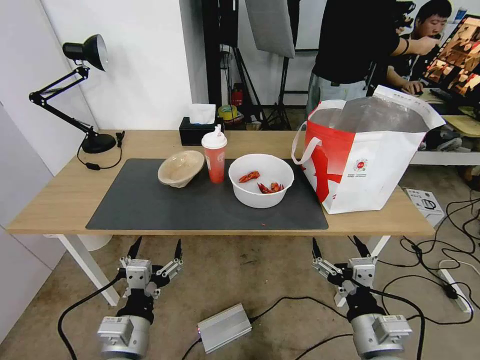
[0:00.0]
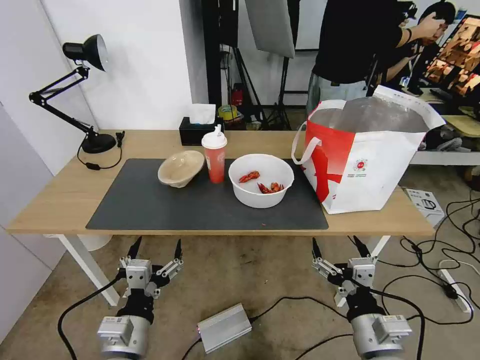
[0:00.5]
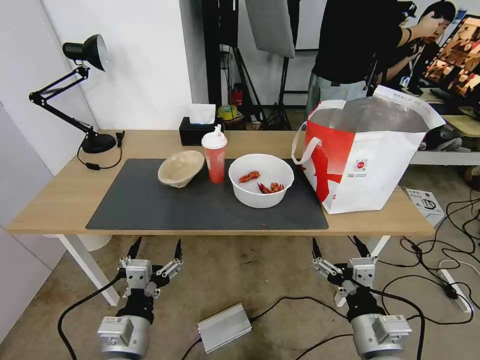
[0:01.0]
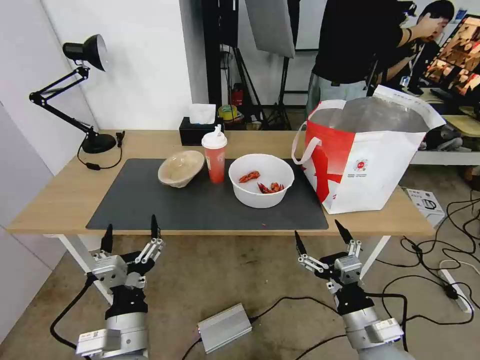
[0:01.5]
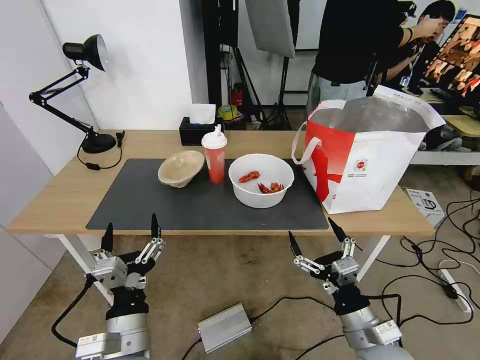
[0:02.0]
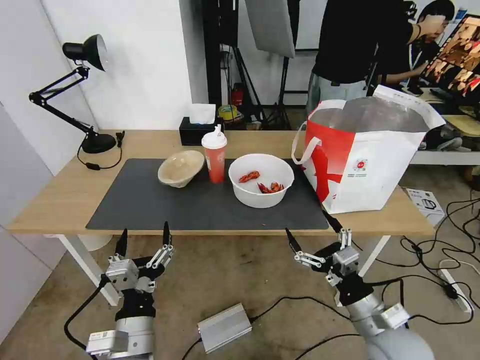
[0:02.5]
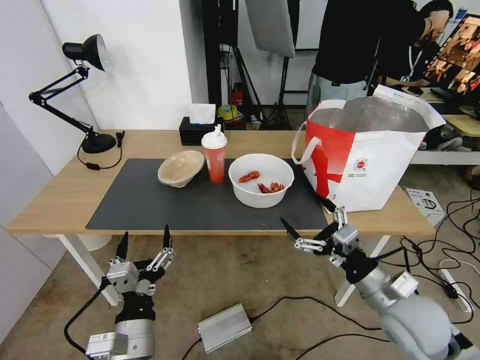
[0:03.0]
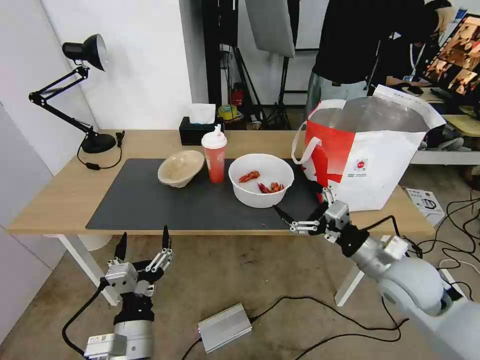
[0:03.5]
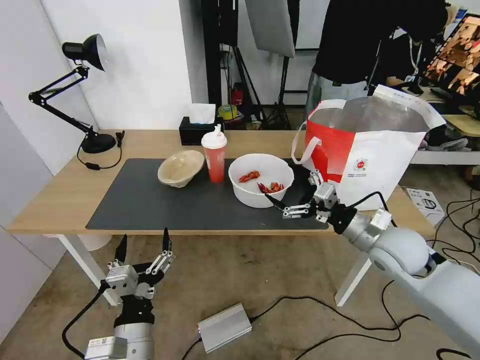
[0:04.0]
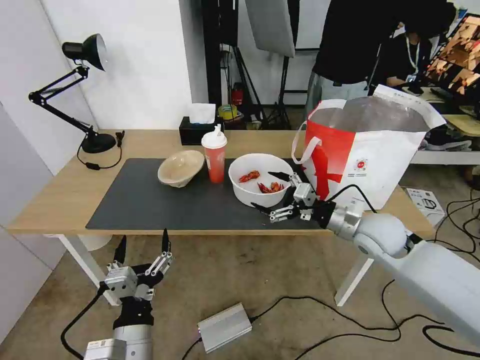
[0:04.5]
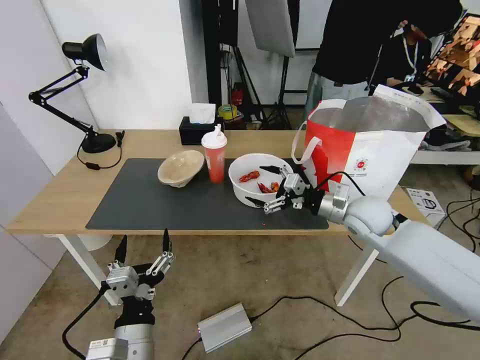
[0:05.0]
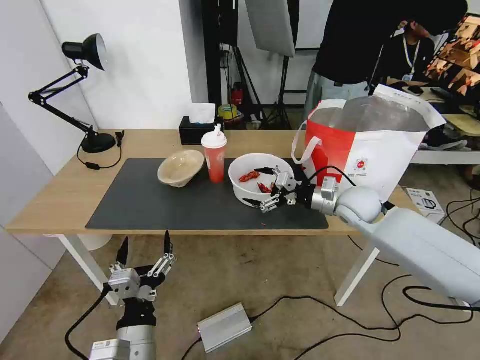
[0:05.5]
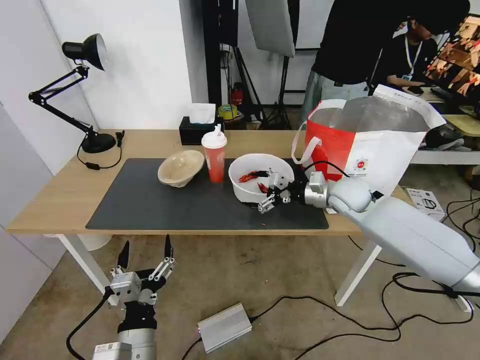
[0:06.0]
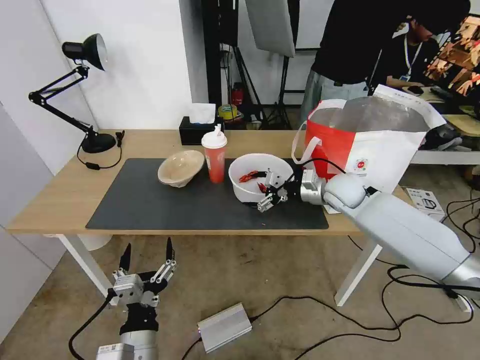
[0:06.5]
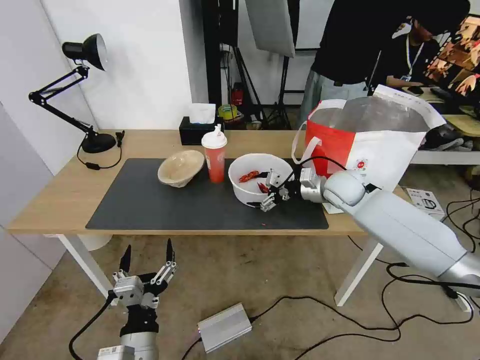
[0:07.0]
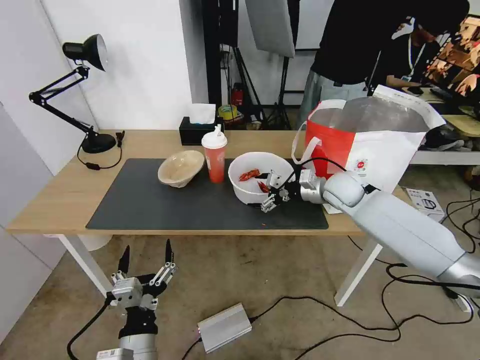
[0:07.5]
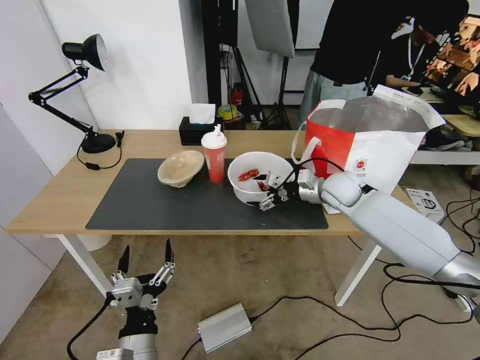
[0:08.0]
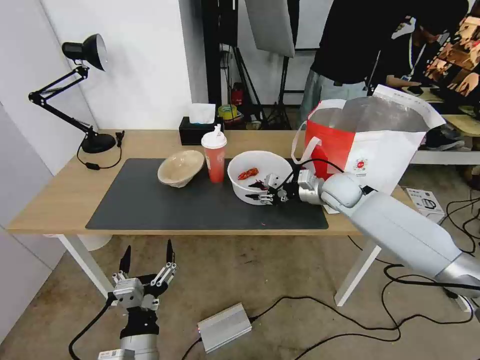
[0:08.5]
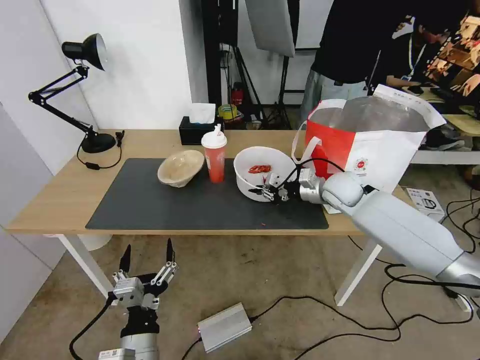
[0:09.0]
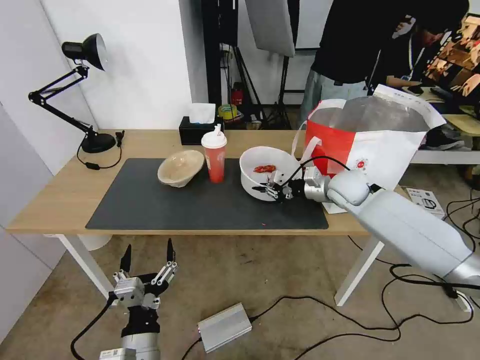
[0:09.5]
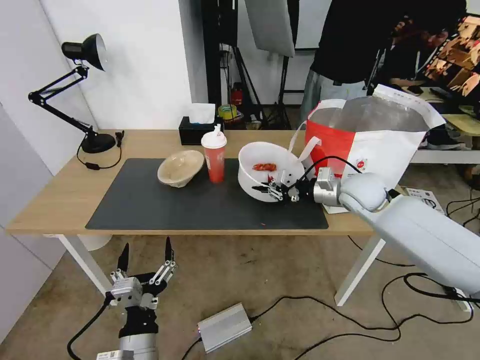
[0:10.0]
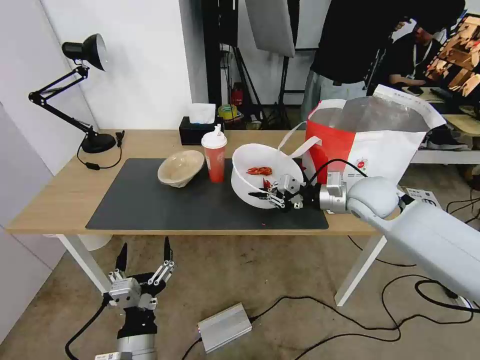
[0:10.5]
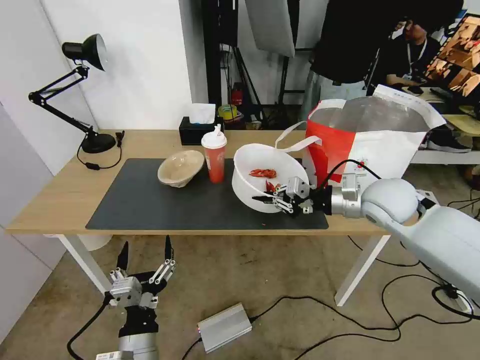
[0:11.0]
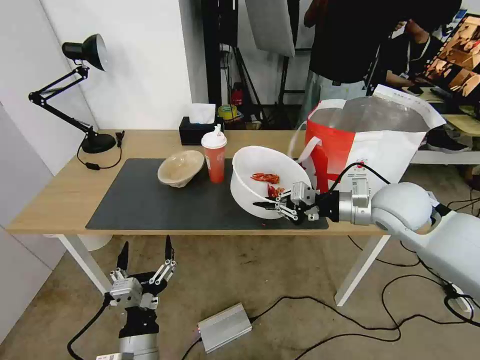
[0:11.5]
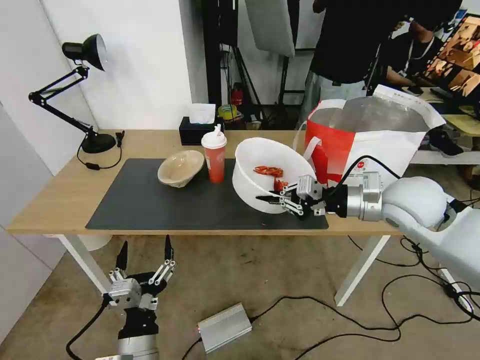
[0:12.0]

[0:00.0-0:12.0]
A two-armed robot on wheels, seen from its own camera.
Task of the whole recording: Pick up the trash from the table and place it into the takeout bag.
2.0 to 4.0 s: The right gripper goes approximately 20 cm forward and upward.
4.0 to 6.0 s: The right gripper goes approximately 15 cm forward.
6.0 to 8.0 s: There are only small adjustments of the grippers.
8.0 to 10.0 s: The right gripper shifts by roughly 5 cm, and closes its fingers.
10.0 to 12.0 s: The right gripper shifts roughly 10 cm backward and upward.

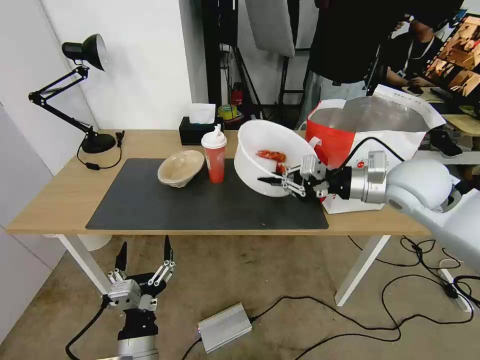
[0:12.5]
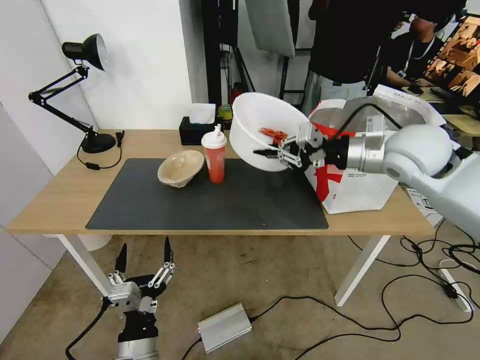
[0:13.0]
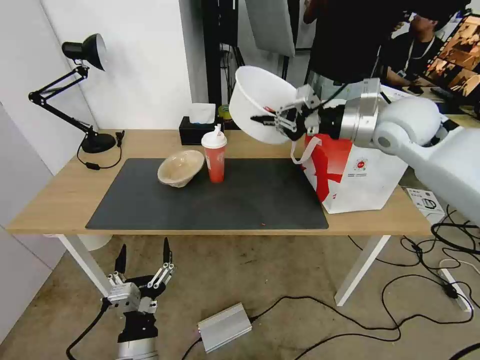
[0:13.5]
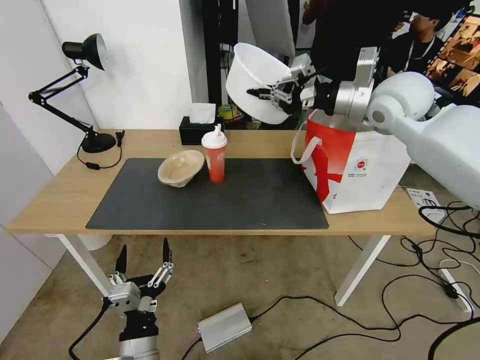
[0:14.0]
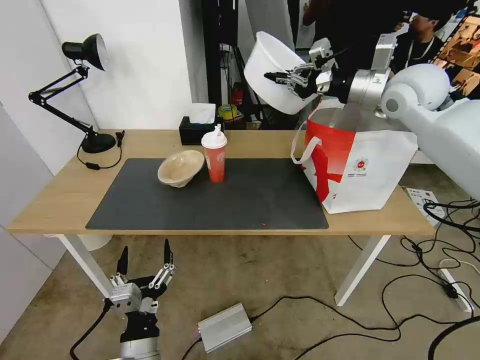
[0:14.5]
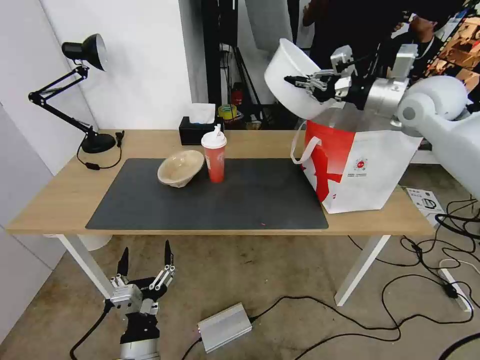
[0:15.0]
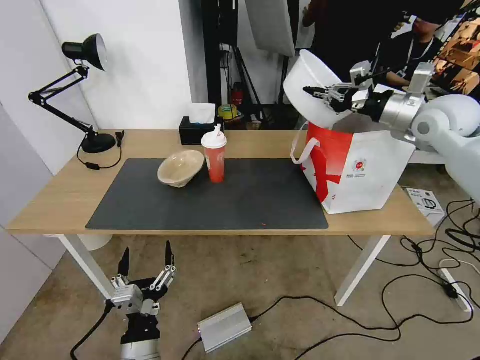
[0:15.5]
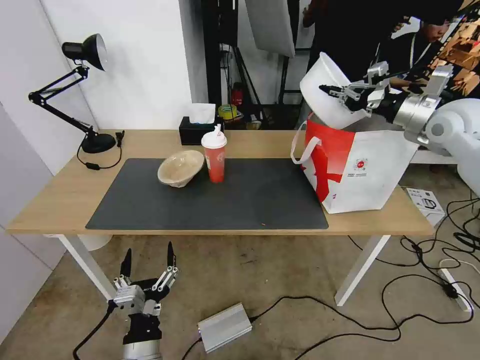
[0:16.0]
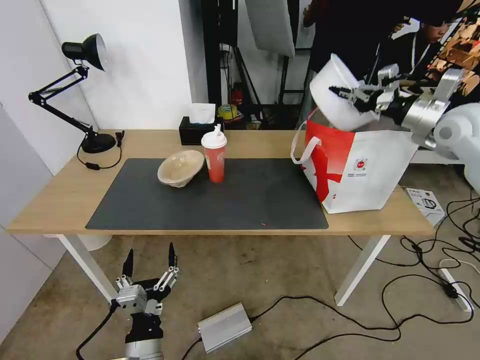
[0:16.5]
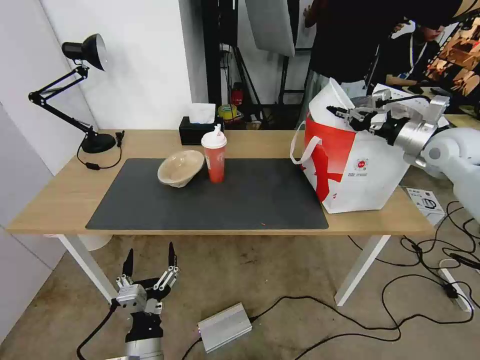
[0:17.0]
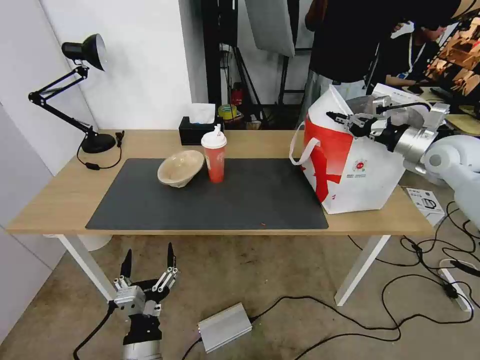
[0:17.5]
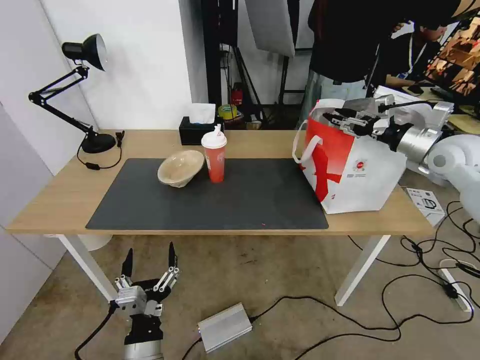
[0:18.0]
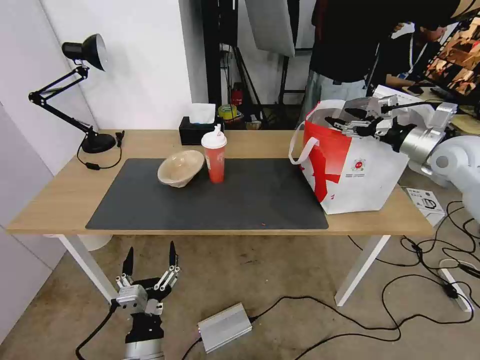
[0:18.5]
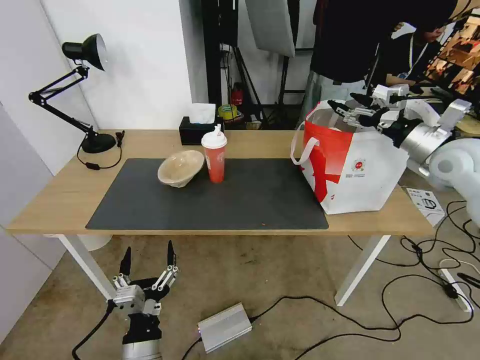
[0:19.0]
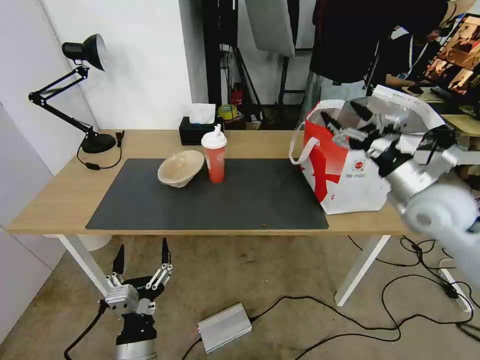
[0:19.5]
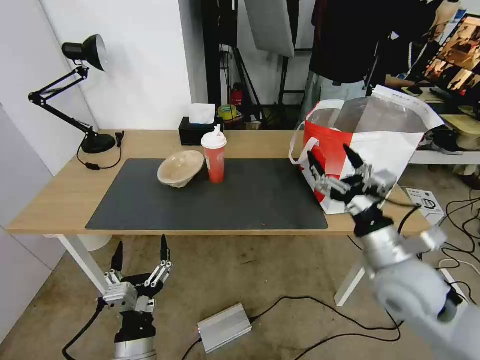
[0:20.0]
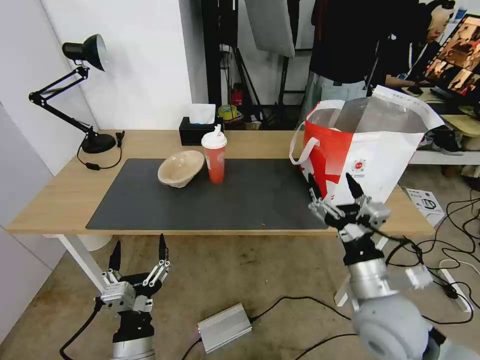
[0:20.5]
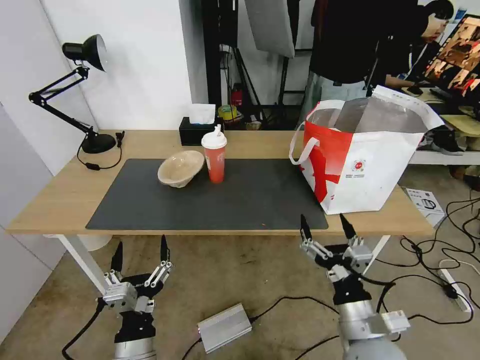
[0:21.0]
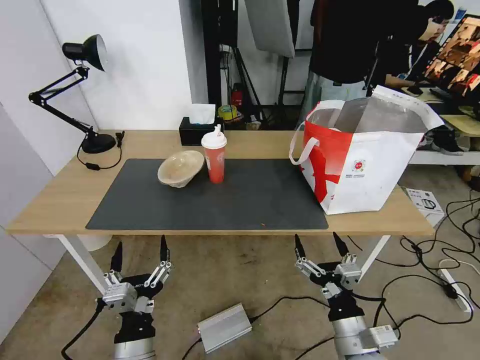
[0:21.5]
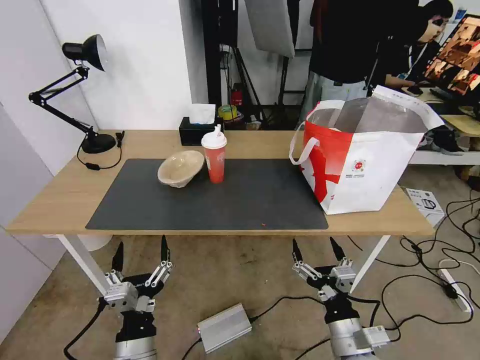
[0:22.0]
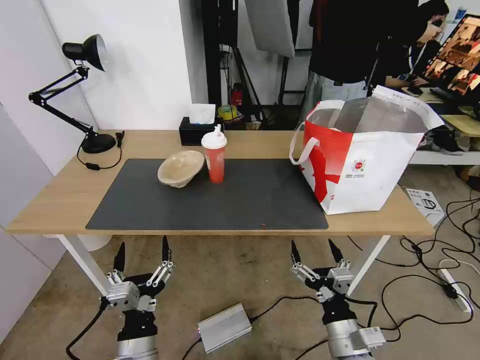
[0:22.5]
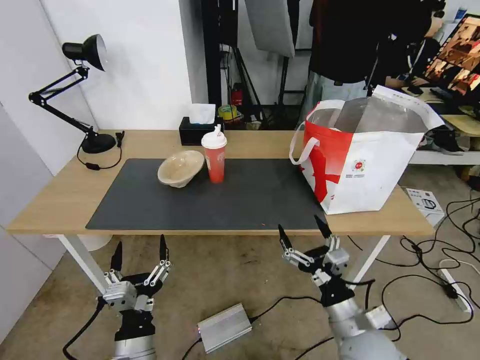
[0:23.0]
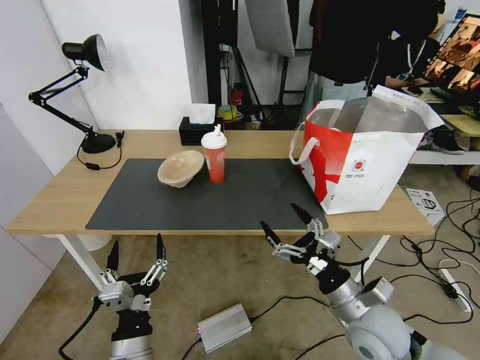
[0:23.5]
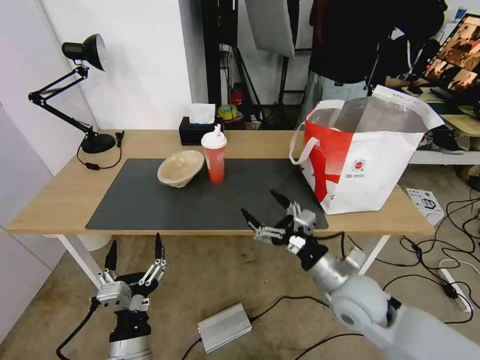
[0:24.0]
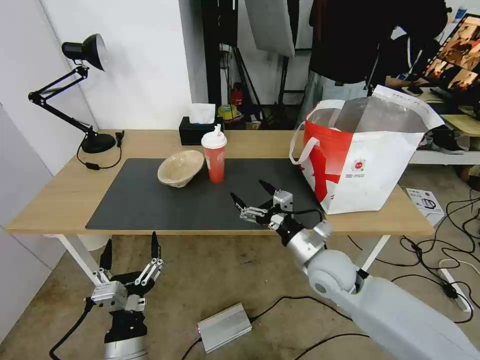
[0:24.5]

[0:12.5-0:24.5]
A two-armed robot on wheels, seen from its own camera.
Task of the whole recording: Pick up the trash from the table and place it into the takeout bag.
12.5 to 14.5 s: The right gripper heads forward and upward, covering some 15 cm.
14.5 to 16.5 s: The right gripper shifts some 15 cm to the right and downward.
16.5 to 18.5 s: The right gripper travels downward by roughly 5 cm, and opens its fingers.
18.5 to 20.5 s: The right gripper shifts some 40 cm backward, to the left and downward.
20.5 to 22.5 s: The right gripper goes some 10 cm downward and backward.
22.5 to 24.5 s: The right gripper travels forward by some 20 cm.

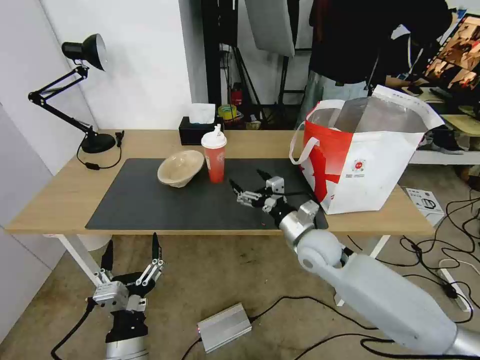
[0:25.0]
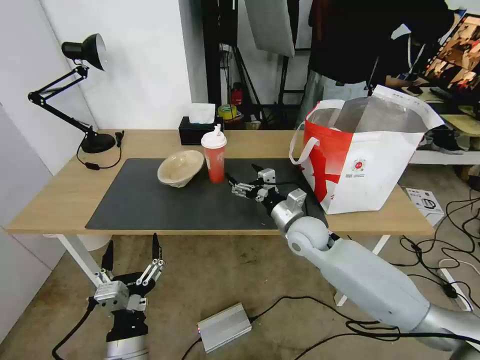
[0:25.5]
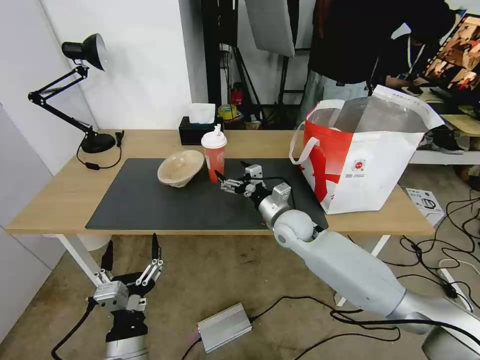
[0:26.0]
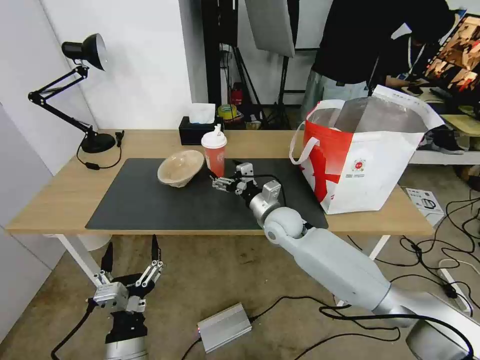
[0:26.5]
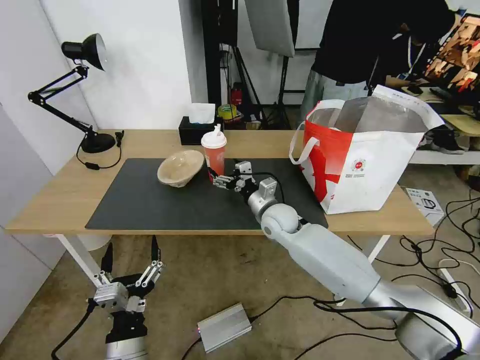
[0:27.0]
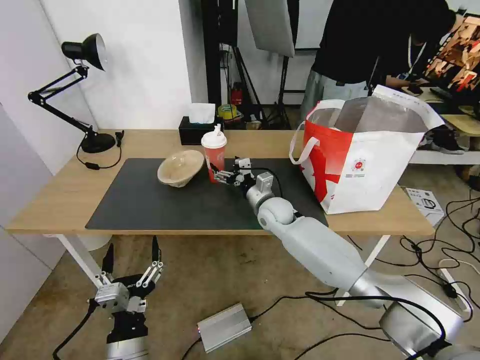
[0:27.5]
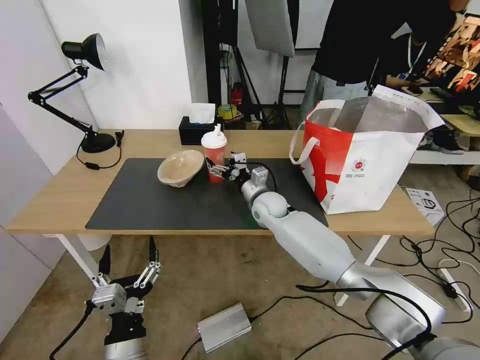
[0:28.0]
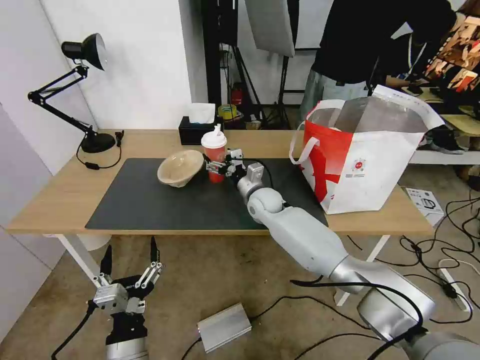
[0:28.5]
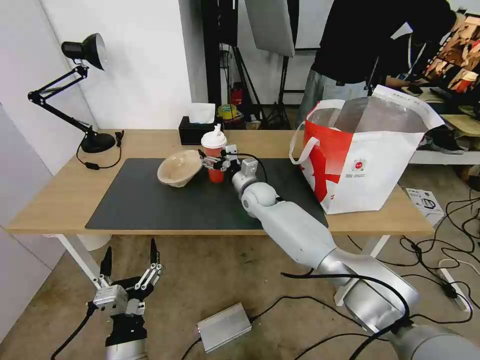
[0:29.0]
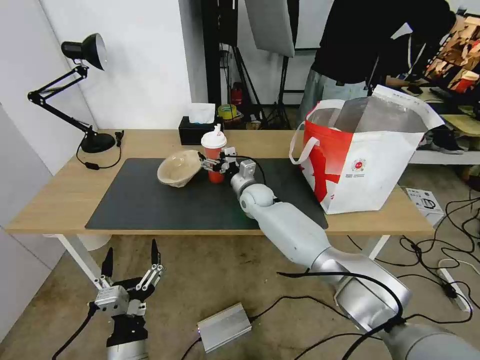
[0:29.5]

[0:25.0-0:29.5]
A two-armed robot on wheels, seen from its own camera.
Task of the whole recording: Pick up the trash from the table and place it into the takeout bag.
25.0 to 27.0 s: The right gripper heads forward and to the left, covering roughly 15 cm.
27.0 to 29.5 s: The right gripper heads forward and to the left, covering approximately 10 cm.
